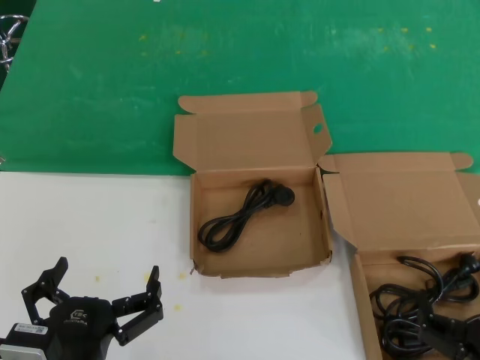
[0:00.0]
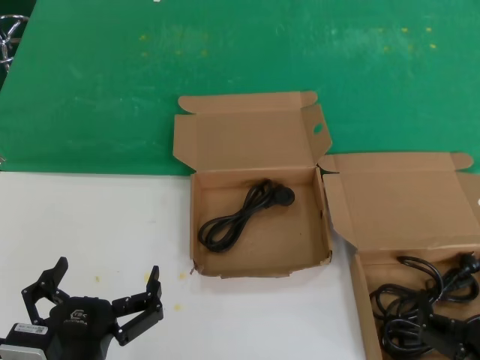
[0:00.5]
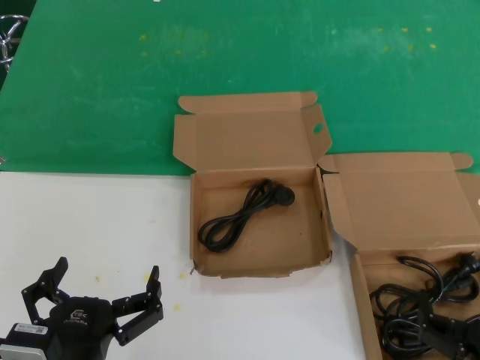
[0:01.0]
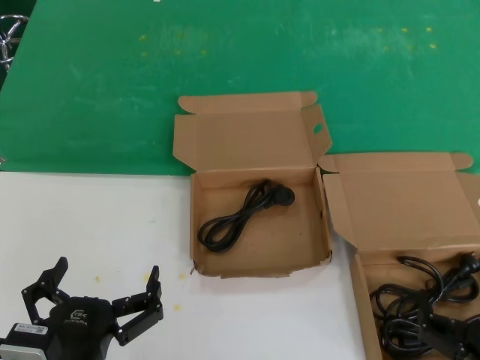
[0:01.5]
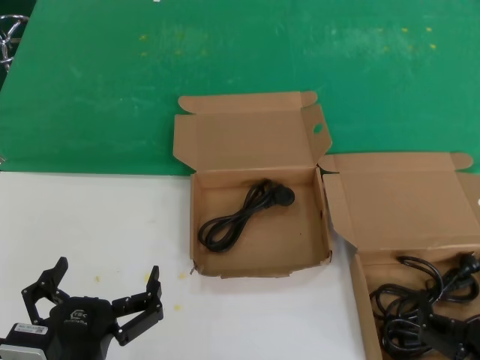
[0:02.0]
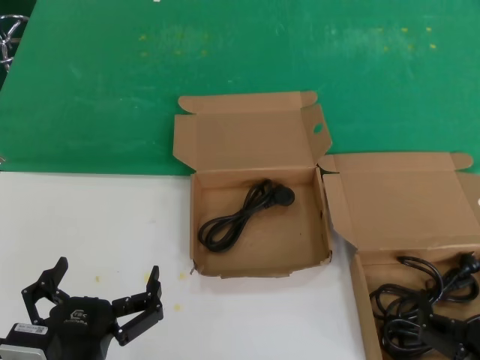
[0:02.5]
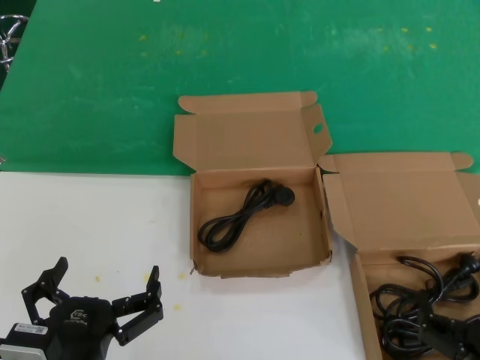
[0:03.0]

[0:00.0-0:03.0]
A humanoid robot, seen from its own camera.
Task of the whole recording: take the parts from the box containing them and put them into an empty box.
0:00.0 to 0:03.0: Neither hand changes place.
